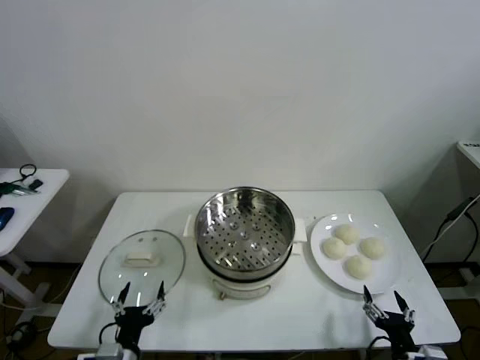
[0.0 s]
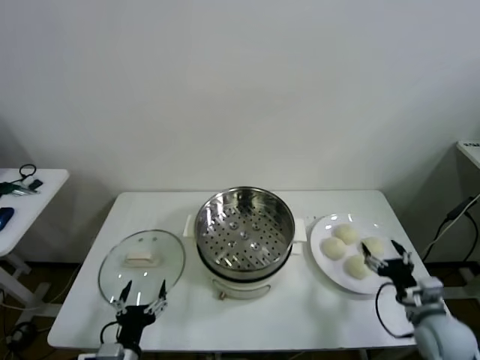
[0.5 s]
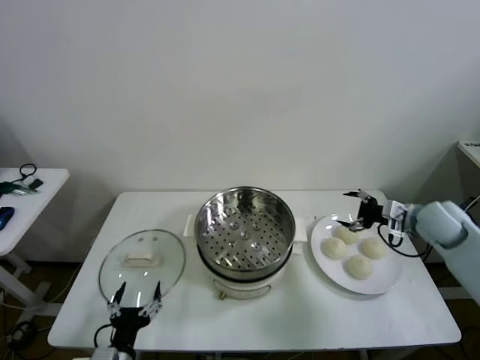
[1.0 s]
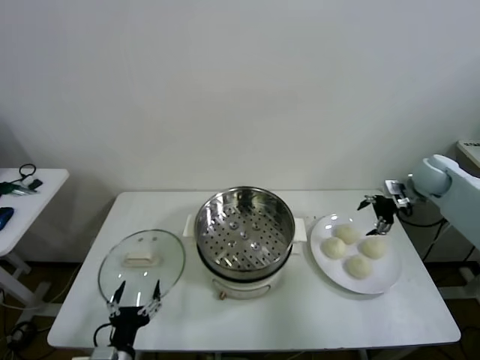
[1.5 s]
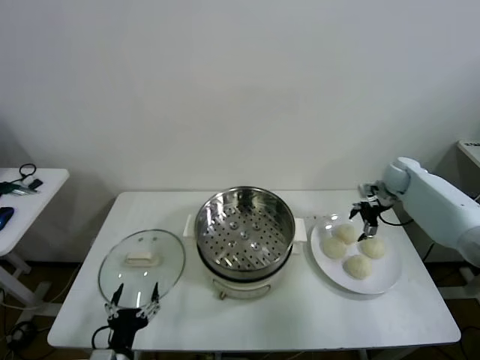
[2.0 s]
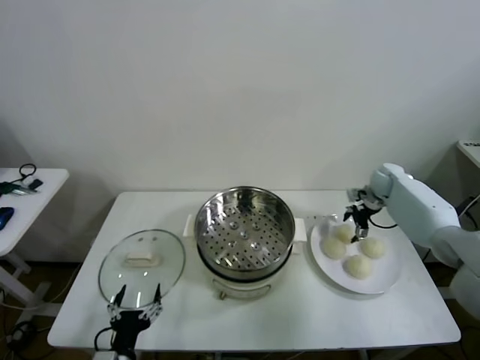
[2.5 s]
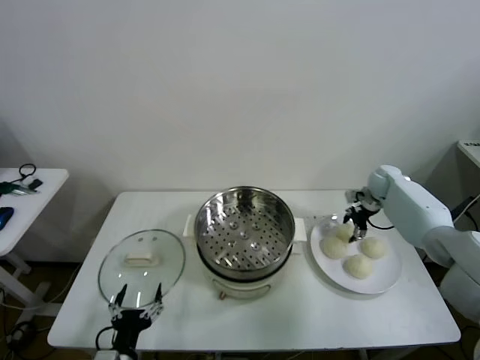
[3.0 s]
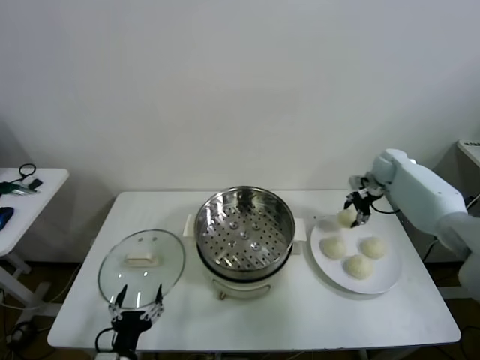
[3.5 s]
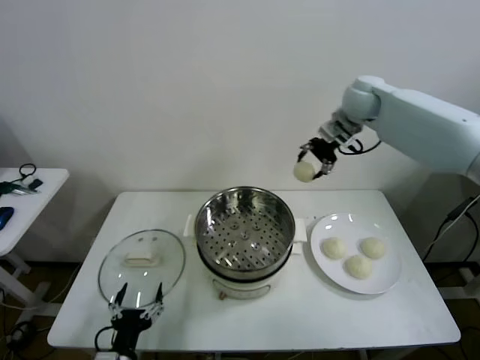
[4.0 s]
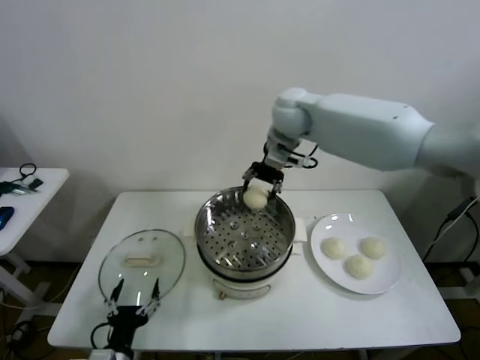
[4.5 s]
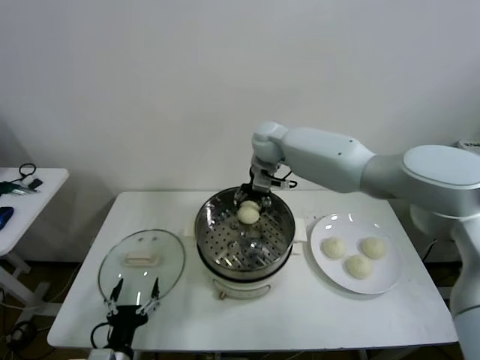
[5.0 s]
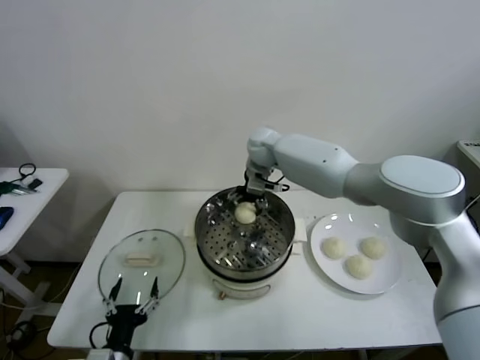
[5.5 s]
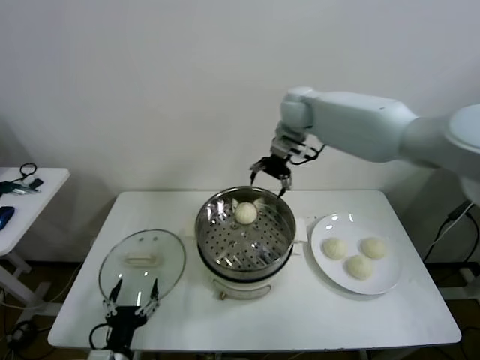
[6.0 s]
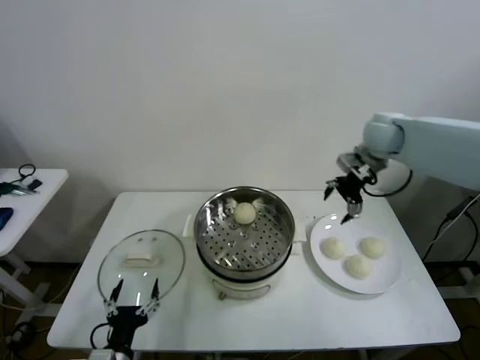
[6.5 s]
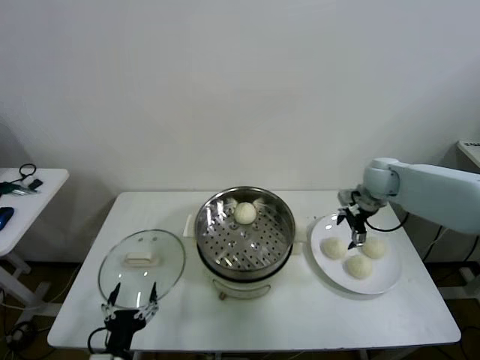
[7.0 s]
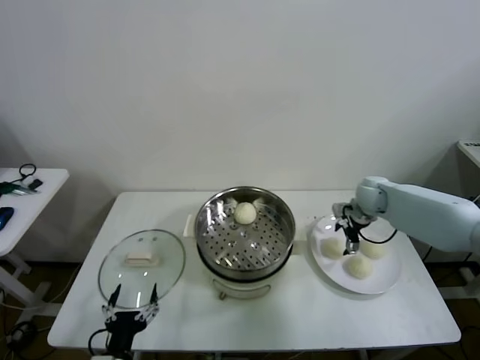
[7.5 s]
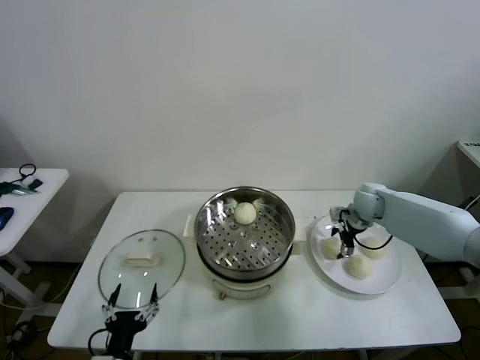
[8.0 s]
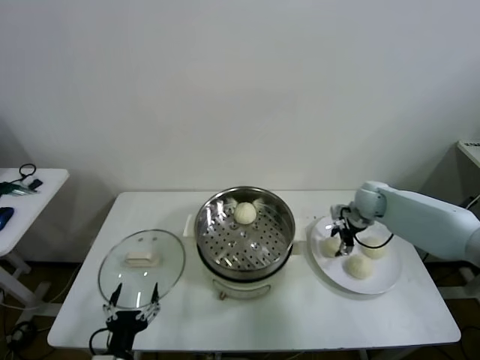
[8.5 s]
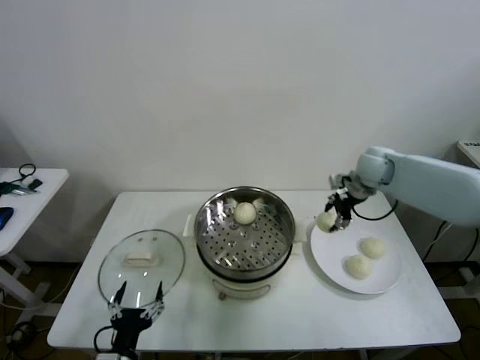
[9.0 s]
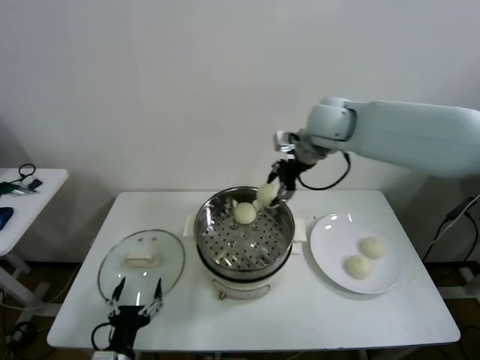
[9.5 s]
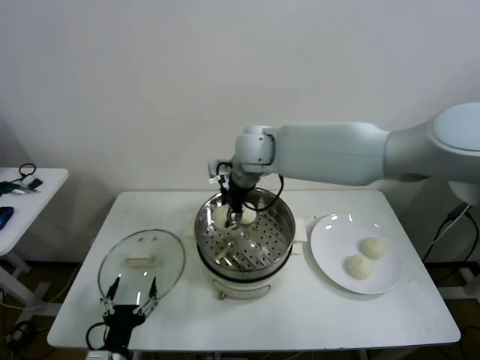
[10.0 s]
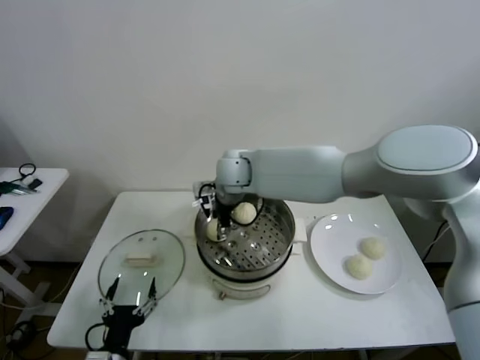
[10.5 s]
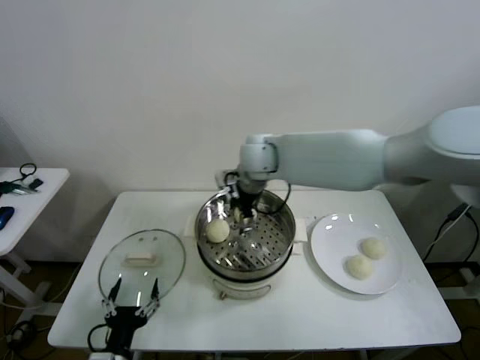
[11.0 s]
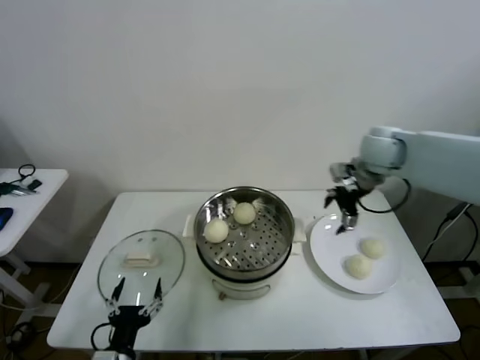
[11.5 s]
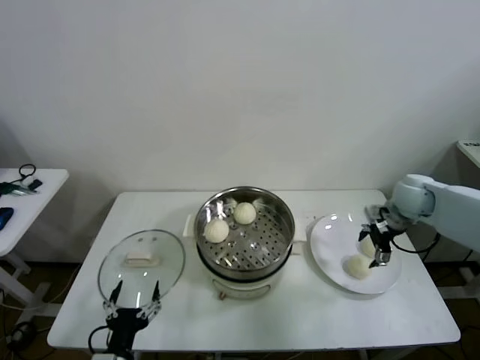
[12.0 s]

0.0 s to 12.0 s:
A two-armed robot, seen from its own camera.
Task of the whole recording: take steamed baozi put them in steamer then cover it.
Step, 0.0 to 3.0 s: Grasp the baozi in the plate with right gripper.
Step, 3.5 to 5.5 s: Place the baozi on the steamer with right gripper.
Step, 6.0 to 8.5 s: Grasp the baozi in the plate with right gripper.
Step, 9.0 to 10.5 s: Place the baozi on the steamer with right gripper.
2.0 to 4.0 s: The right gripper shifts approximately 30 cm upward and to the left, and closes.
4.0 to 6.0 s: The right gripper reaches roughly 15 cm to the left, then returns, and opens up.
6.0 to 8.0 s: The right gripper heads downward and to the right, covering about 30 cm.
8.0 to 10.0 s: The right gripper moves to the left and upward, some 35 cm, and closes up.
10.0 to 12.0 s: The right gripper moves to the right, approximately 40 cm, and opens.

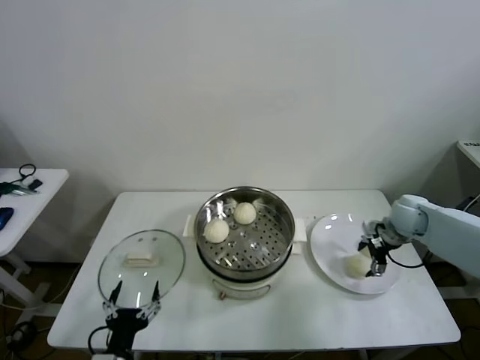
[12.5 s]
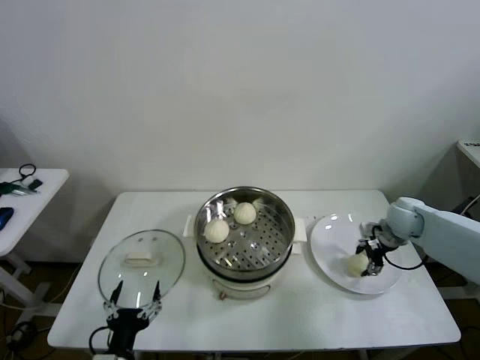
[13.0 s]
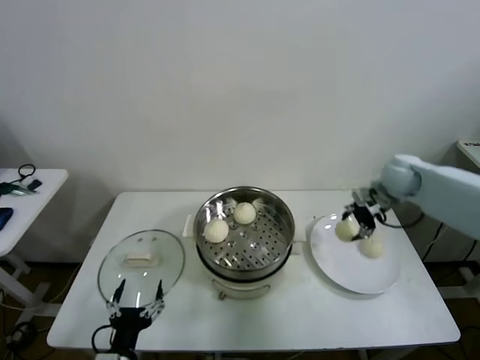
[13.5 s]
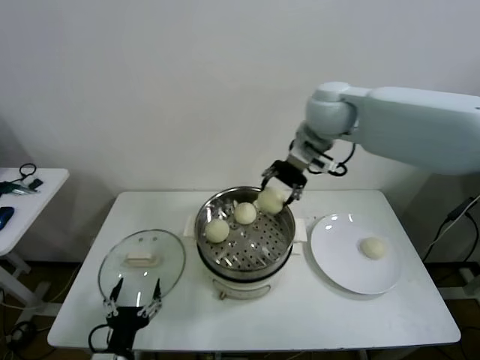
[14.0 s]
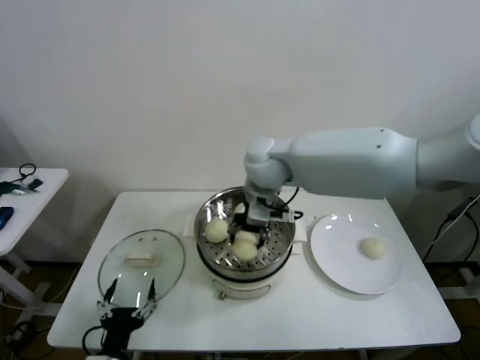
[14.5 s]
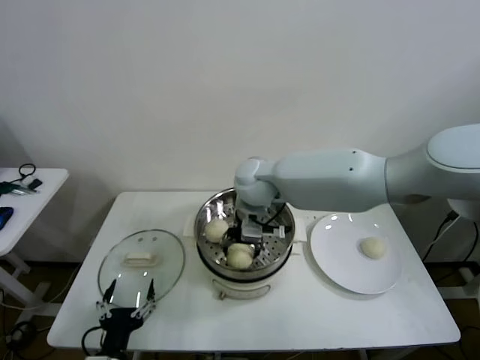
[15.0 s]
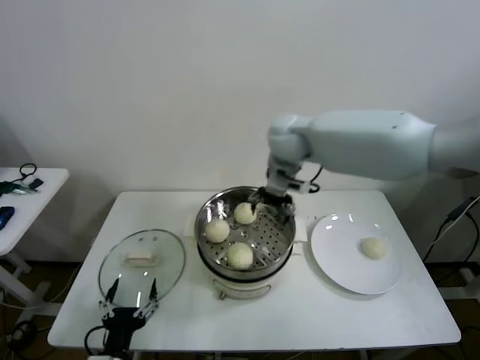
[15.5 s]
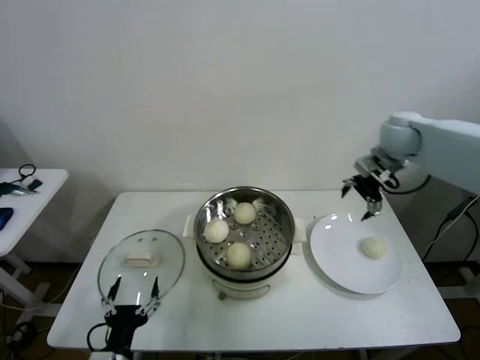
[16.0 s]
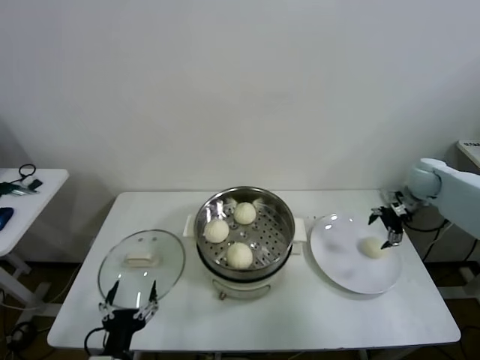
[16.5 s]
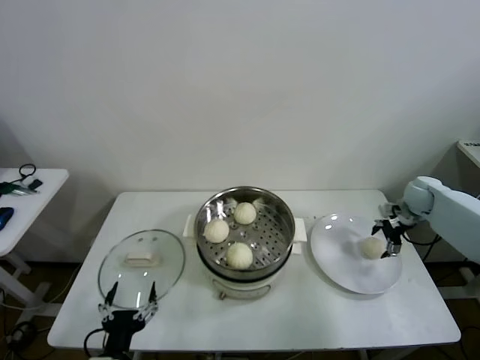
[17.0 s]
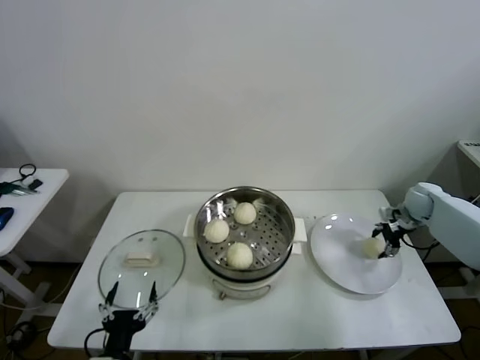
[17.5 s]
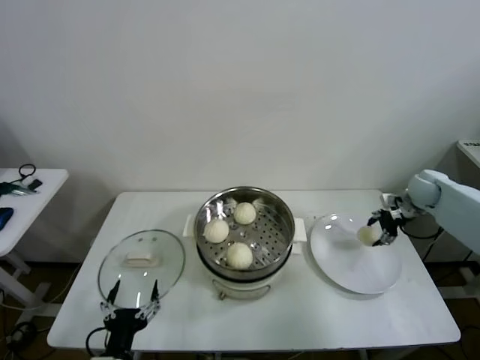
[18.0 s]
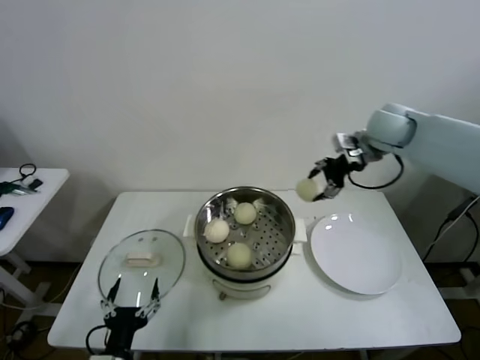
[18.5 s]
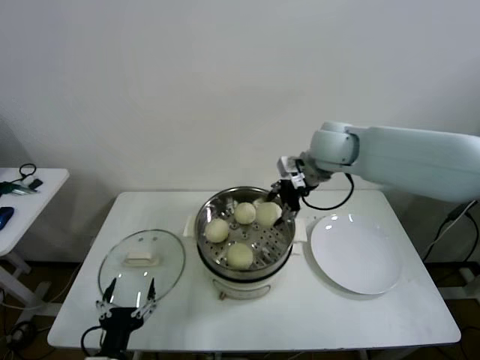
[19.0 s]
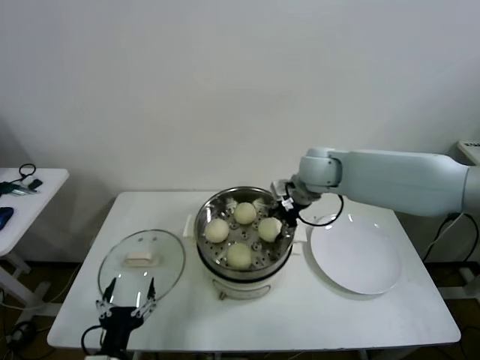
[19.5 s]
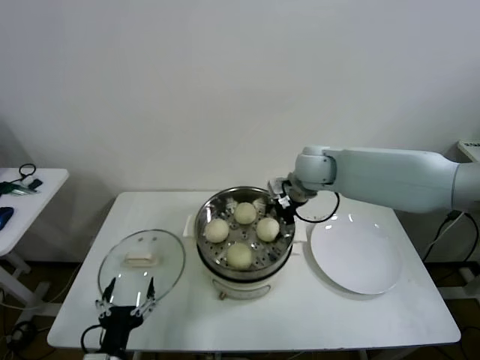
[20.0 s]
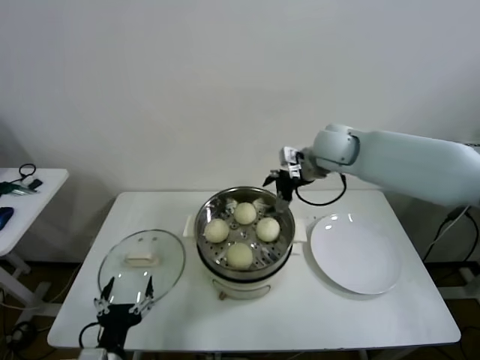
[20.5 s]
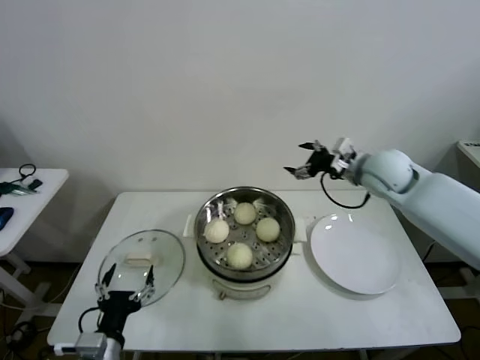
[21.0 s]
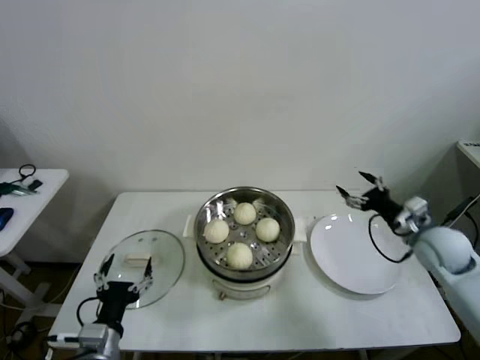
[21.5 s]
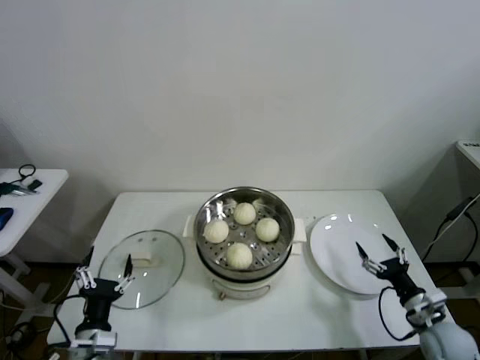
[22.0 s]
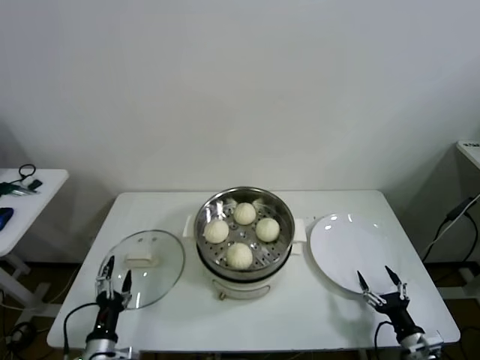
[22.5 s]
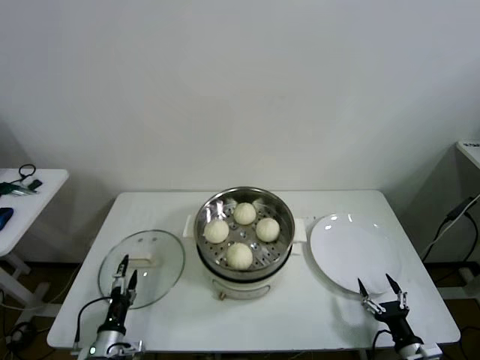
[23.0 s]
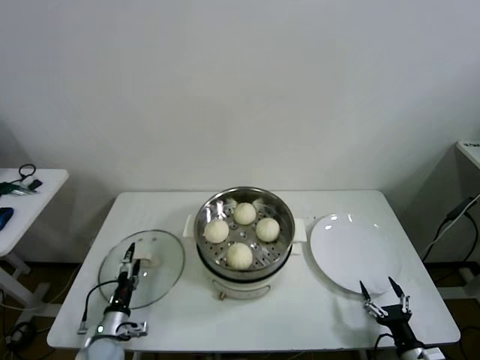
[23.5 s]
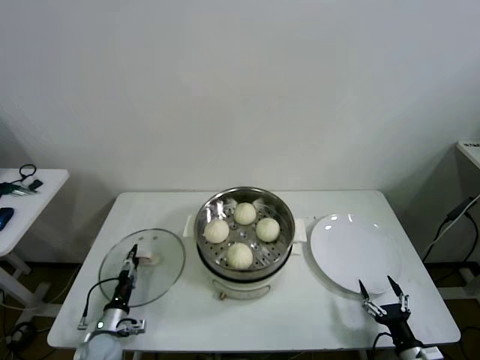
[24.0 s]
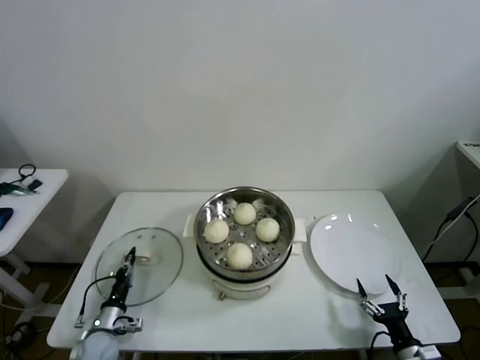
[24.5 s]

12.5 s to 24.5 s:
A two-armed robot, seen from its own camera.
Task of the whole recording: take steamed baozi put them in steamer then cover it.
Step, 13.5 to 15.0 s: Place the baozi on the steamer with right gripper.
Step, 15.5 to 17.5 s: Grasp the baozi in the plate with right gripper.
Step, 18.0 to 20.0 s: Place the baozi on the steamer with right gripper.
12.5 to 14.5 s: The right gripper is displaced to the left and upward by about 40 cm, and closes.
14.5 to 16.5 s: The right gripper shifts about 40 cm to the right, and opens up.
16.5 to 18.5 s: The right gripper travels to the left and upward by some 25 cm, and closes its fingers.
18.5 to 20.5 s: The right gripper moves to the left, roughly 10 cm, and opens its fingers.
20.5 to 22.5 s: The left gripper heads downward and to the left, covering approximately 10 cm. Meanwhile the right gripper goes approximately 60 cm downward, backward and to the right.
22.5 to 24.5 s: The left gripper travels forward and downward by some 10 cm, and closes.

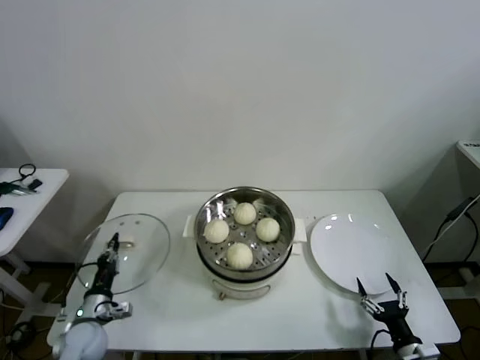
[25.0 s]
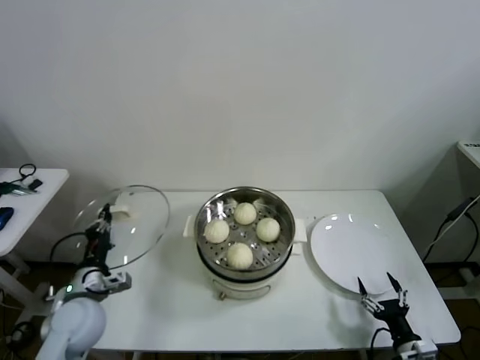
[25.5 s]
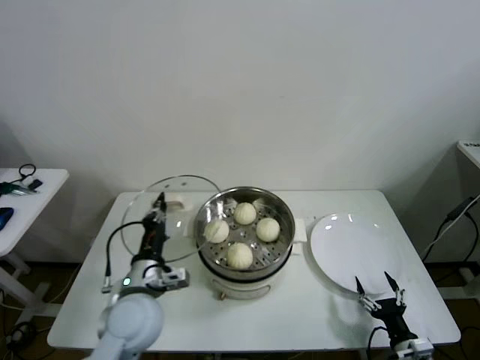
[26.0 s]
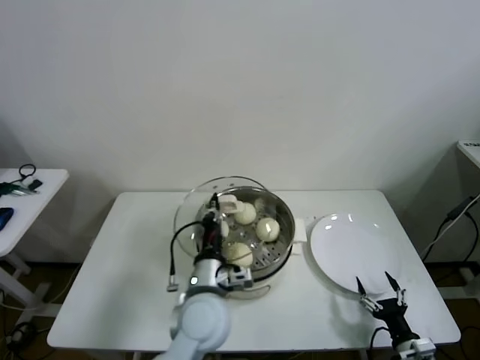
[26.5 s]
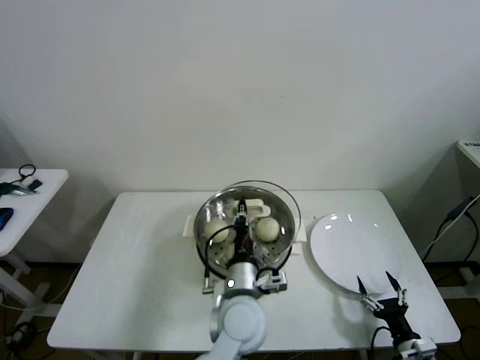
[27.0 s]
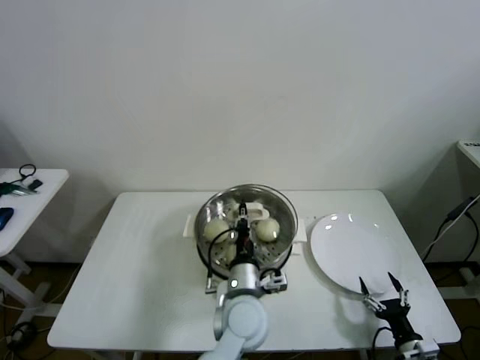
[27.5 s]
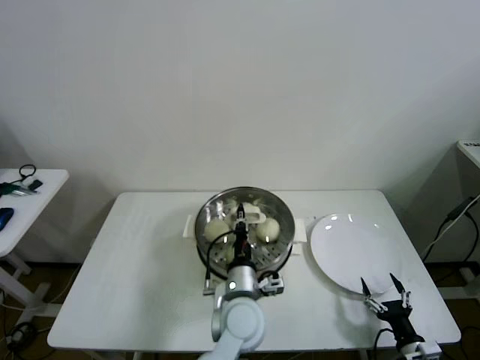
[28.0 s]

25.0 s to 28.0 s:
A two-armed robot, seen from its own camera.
Task of the whole recording: take steamed baozi put them in steamer then cover it.
25.0 to 26.5 s: The left gripper travels to the right and upward by about 35 cm.
26.5 to 28.0 s: The left gripper travels to the right by approximately 10 cm.
